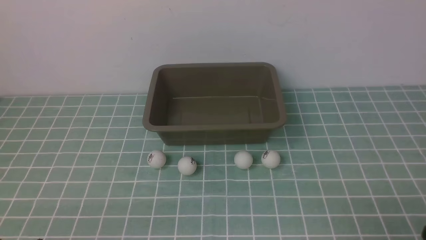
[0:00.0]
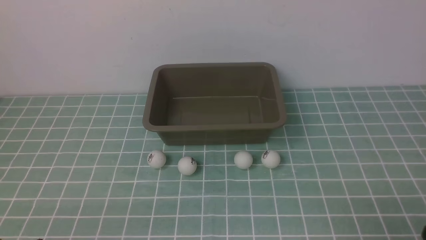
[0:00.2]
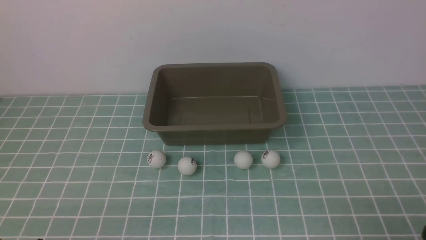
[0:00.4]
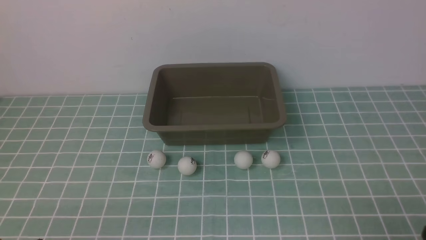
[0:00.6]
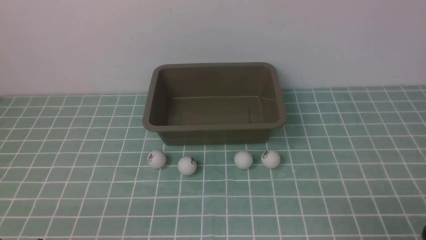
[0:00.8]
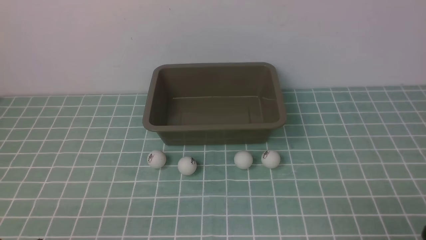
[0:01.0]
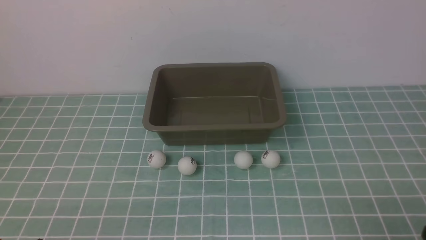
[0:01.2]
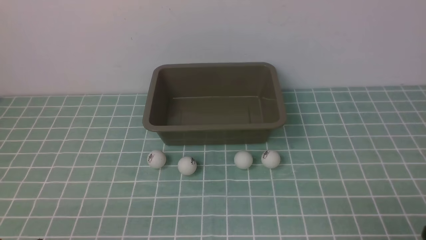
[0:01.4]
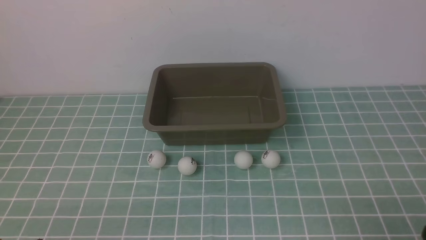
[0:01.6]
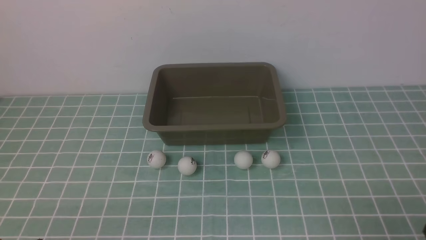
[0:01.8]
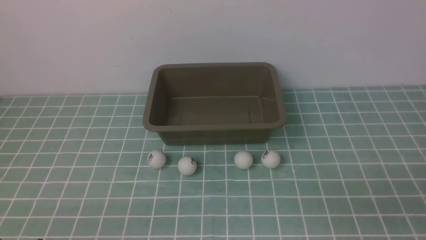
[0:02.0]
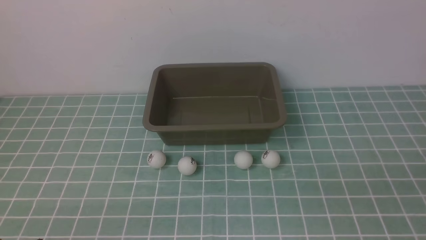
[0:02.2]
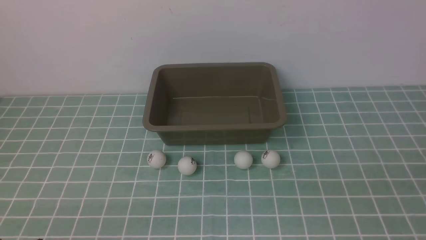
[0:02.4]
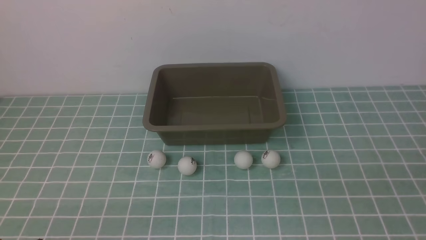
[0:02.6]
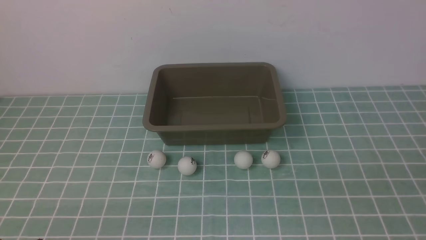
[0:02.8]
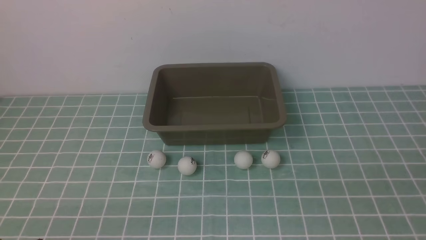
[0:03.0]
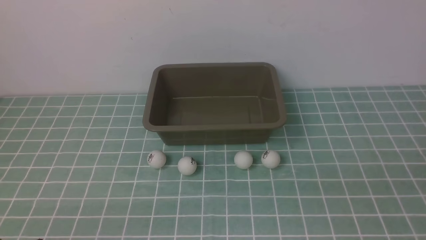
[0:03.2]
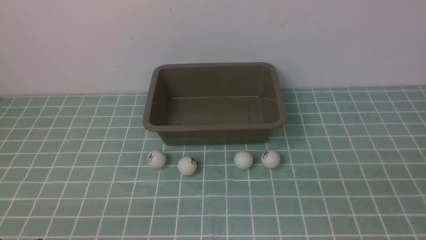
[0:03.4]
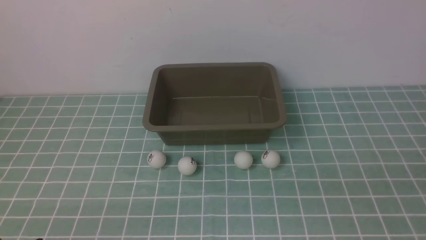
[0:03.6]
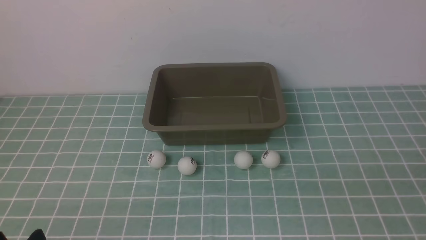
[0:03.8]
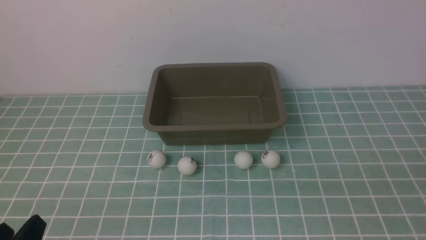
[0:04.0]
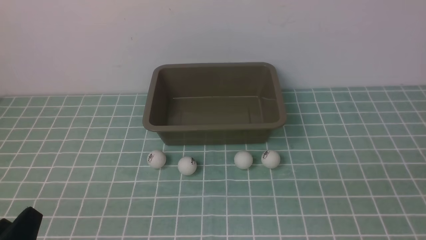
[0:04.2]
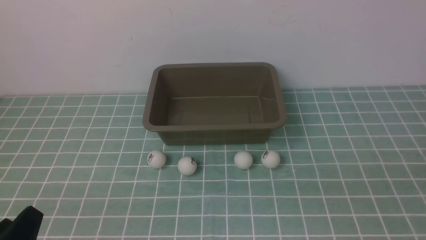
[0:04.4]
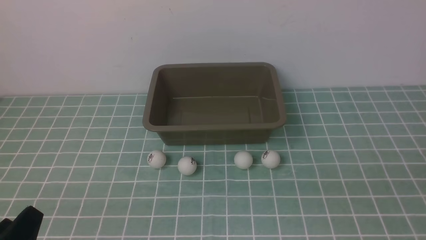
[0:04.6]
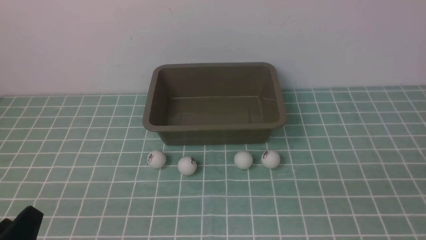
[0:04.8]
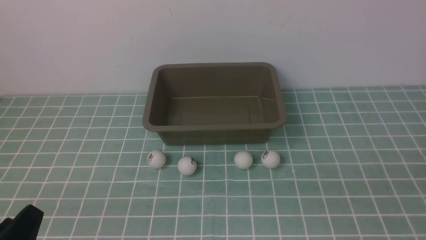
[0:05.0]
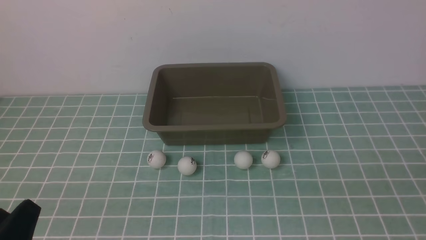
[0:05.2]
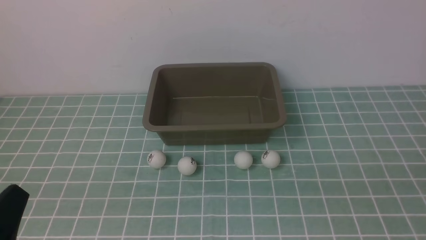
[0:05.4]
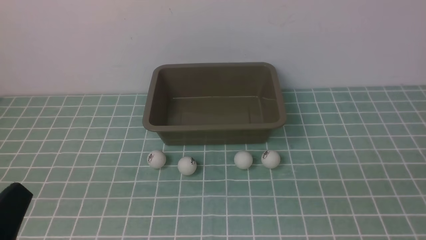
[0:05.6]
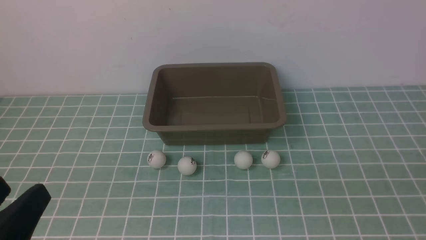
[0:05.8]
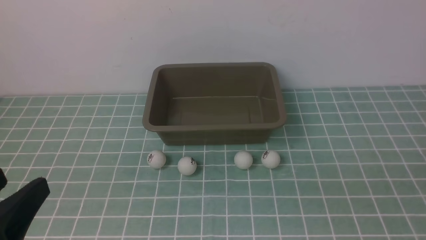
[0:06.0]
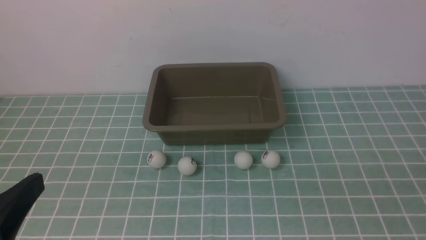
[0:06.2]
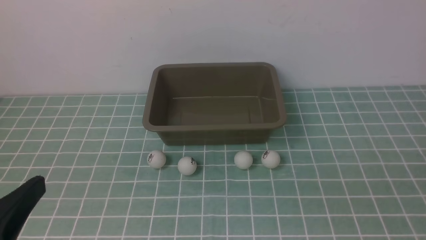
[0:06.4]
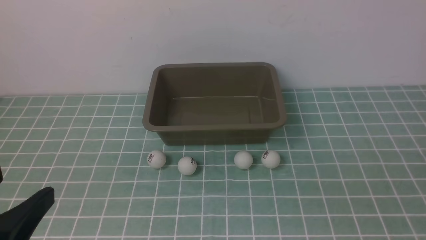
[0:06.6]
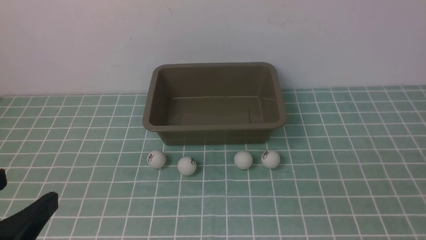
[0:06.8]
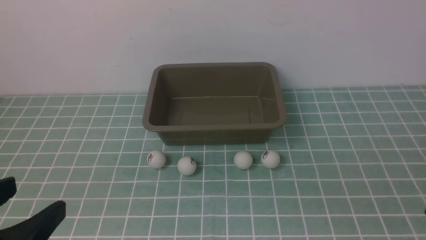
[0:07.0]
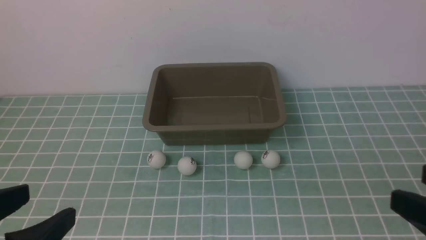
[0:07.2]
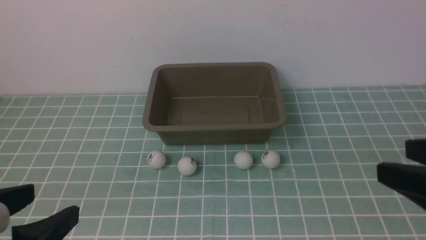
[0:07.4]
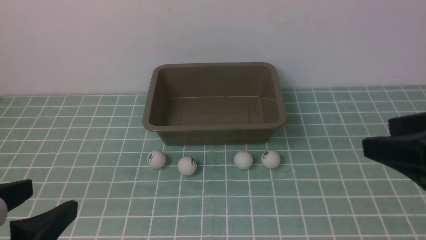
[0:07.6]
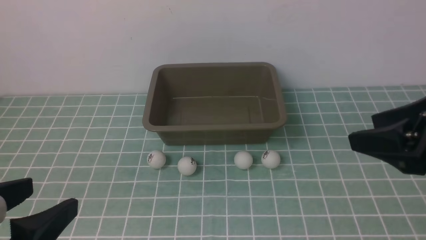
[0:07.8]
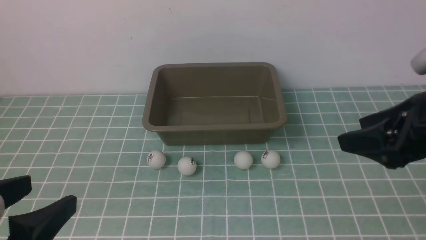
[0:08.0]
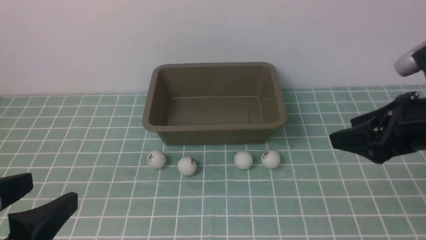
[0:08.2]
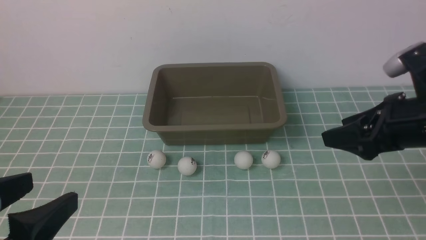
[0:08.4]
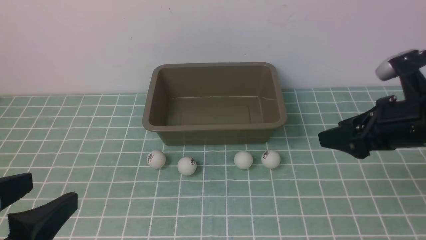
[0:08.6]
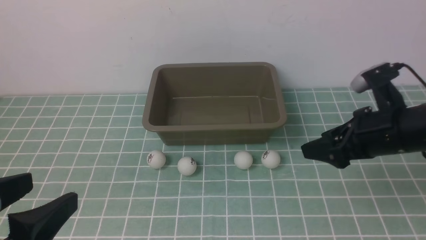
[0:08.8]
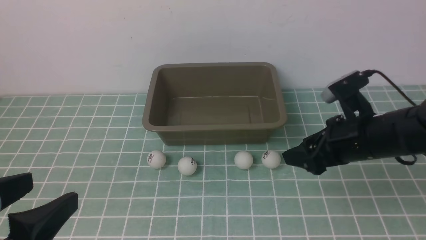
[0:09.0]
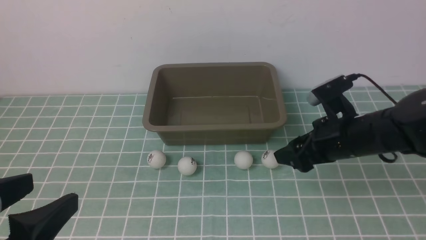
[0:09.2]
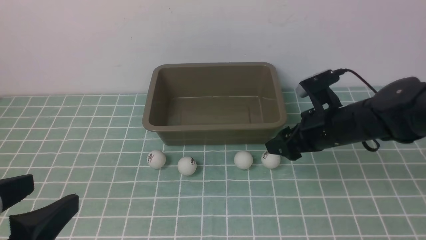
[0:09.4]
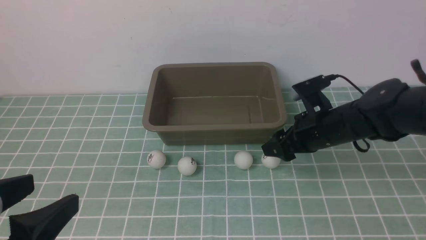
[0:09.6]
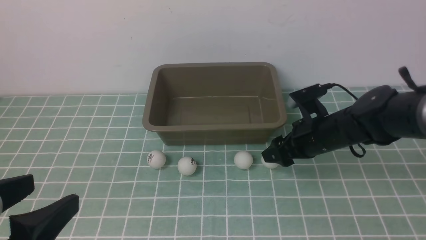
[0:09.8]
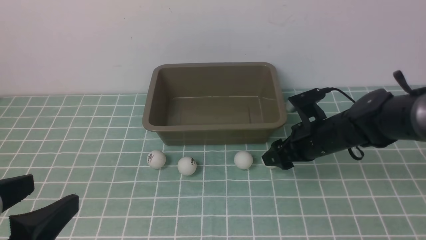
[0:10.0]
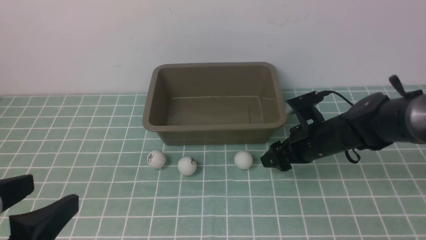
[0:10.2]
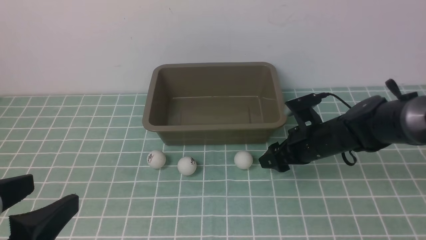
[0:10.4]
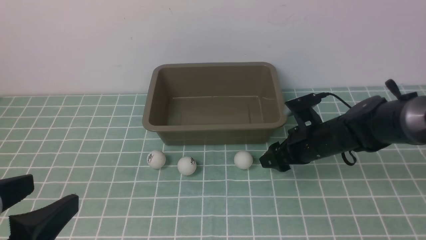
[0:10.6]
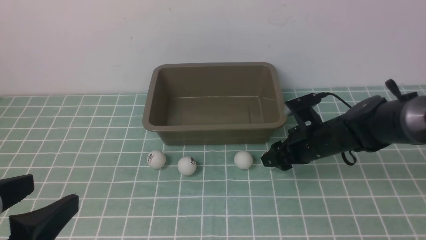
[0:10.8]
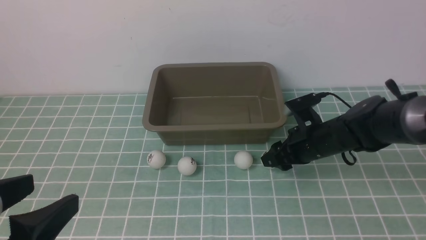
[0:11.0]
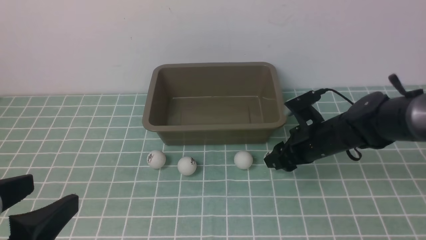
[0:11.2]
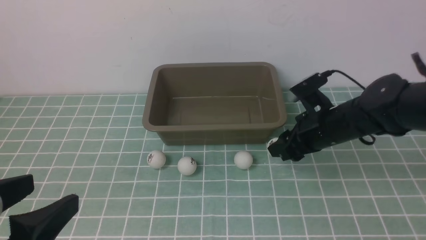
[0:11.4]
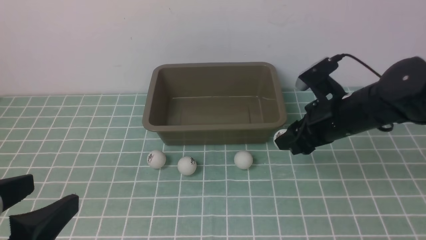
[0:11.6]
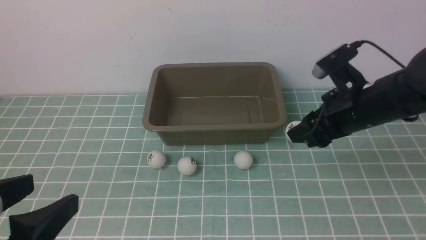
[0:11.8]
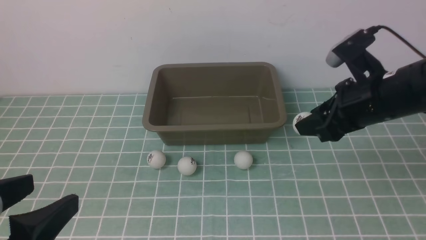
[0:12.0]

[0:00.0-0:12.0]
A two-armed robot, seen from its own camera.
Step, 0:00.0 to 0:11.4: use the right arm to clamp the table tennis ball closest to it.
0:00.0 to 0:01.6: Neither gripper changes place.
0:04.4 to 0:06.0: The left gripper is displaced upward by some 15 cm.
0:06.0 to 0:07.6: The right gripper travels forward by approximately 25 cm.
0:07.6 to 0:09.0: The right gripper travels downward, forward and to the left by about 20 cm.
0:09.0 to 0:10.4: The right gripper closes up.
0:10.4 to 0:12.0: The right gripper is displaced upward and backward by about 20 cm.

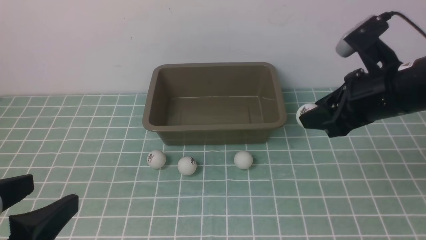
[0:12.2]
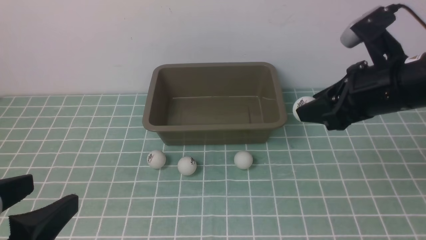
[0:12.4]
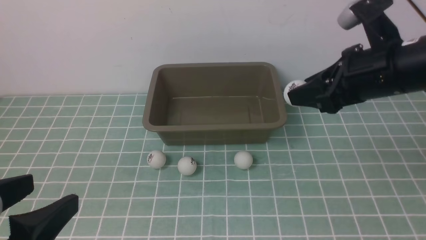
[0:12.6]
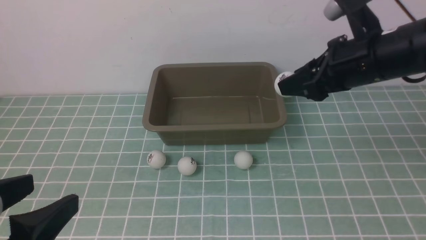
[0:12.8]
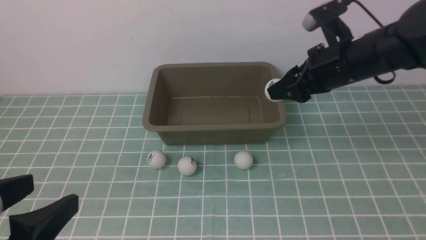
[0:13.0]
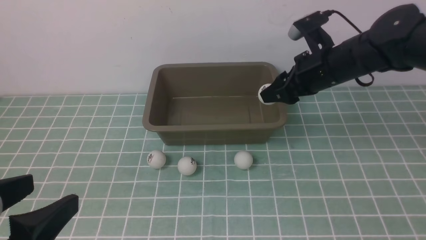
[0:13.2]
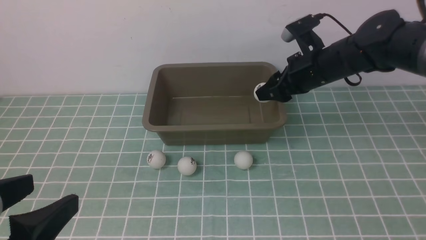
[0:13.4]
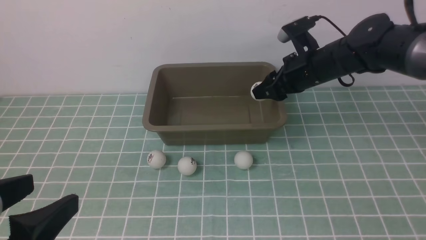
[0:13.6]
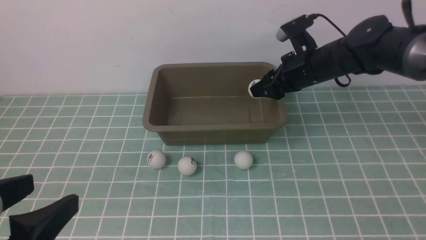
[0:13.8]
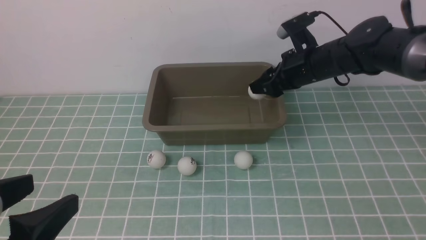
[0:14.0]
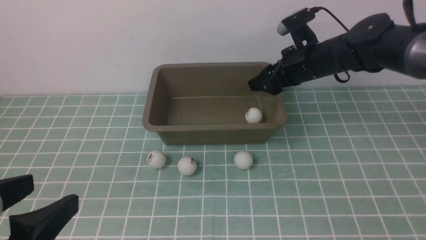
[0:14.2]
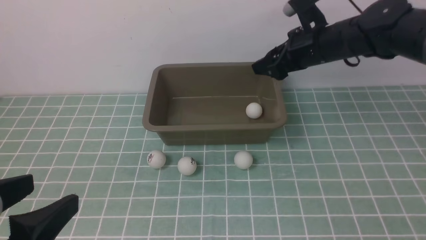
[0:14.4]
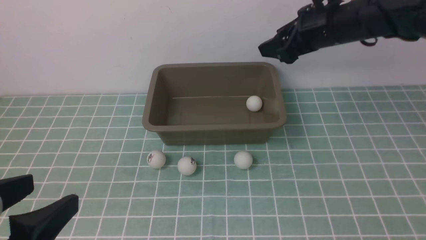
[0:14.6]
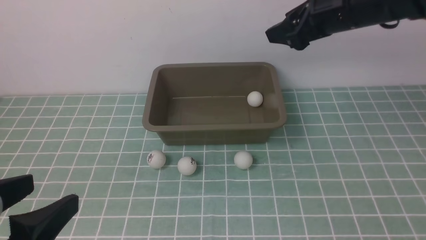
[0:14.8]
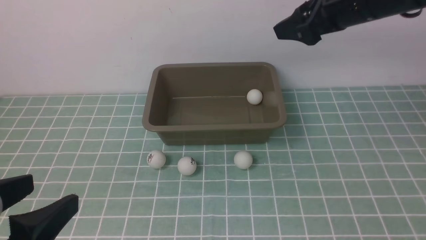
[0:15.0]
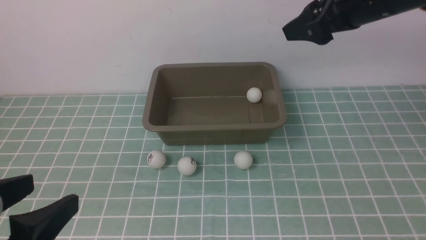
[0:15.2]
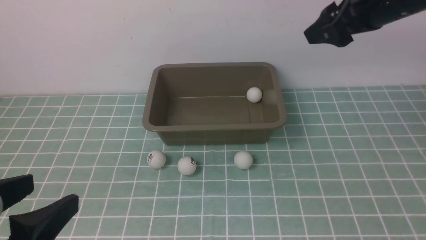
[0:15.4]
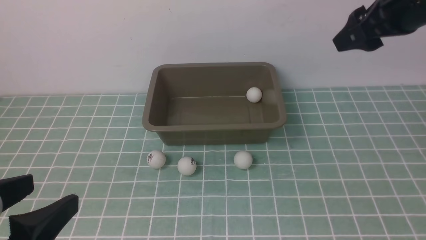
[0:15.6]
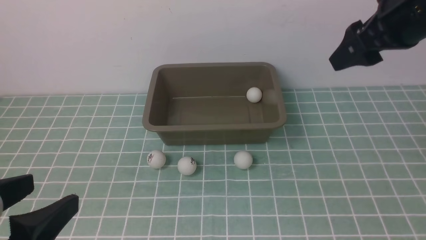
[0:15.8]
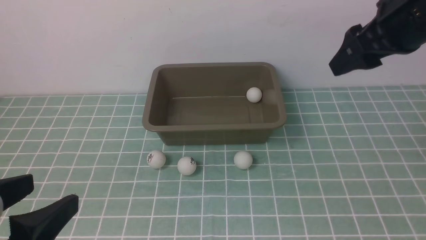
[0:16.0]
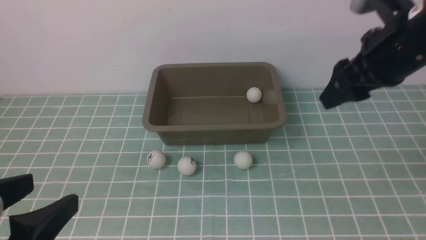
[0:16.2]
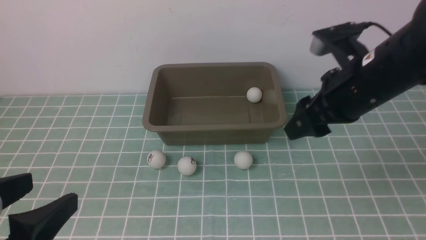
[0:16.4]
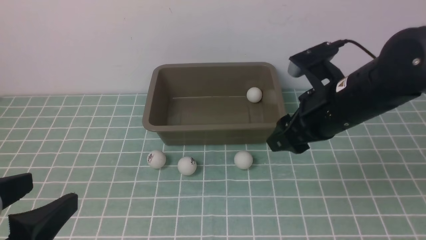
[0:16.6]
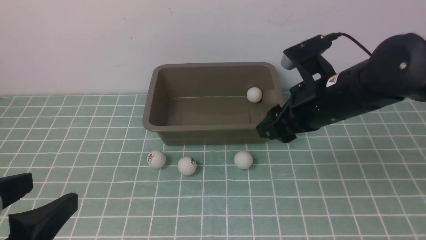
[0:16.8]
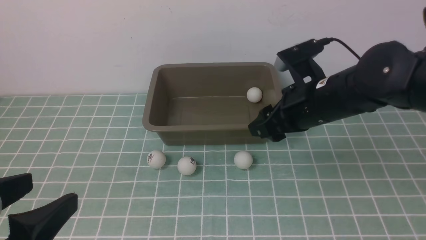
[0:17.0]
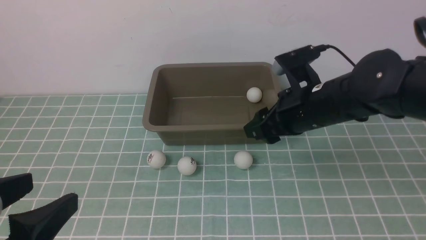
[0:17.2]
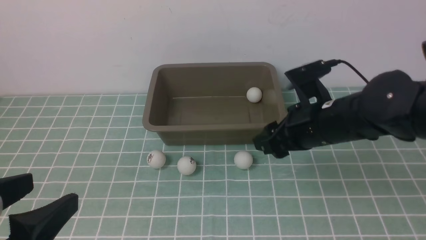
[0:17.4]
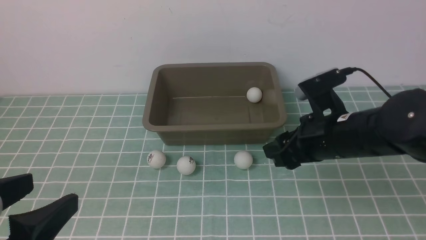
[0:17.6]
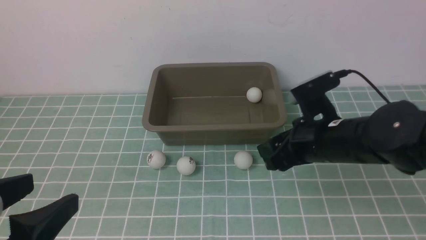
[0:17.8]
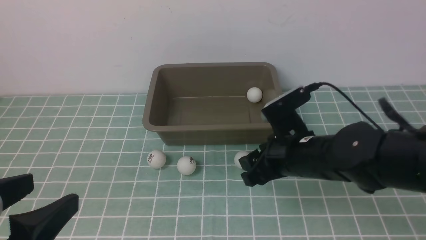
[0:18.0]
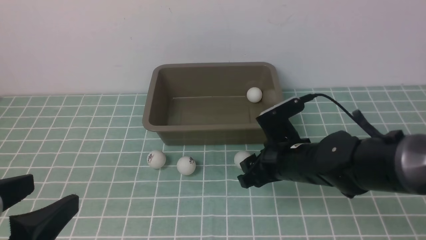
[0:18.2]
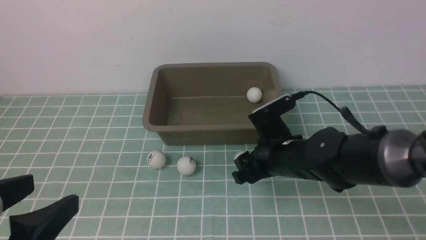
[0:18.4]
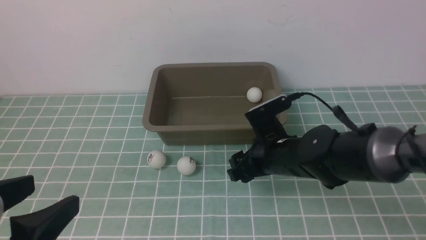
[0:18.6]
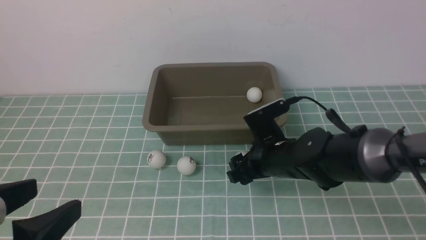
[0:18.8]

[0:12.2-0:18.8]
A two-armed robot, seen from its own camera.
Step, 0:12.2 to 0:14.2: use the right arm to put the table tennis ball into the box.
0:12.2 to 0:13.8: The right gripper travels forward and downward by about 20 cm.
0:13.8 to 0:15.4: The right gripper moves upward and backward, roughly 20 cm, and opens.
0:15.4 to 0:17.2: The right gripper shifts roughly 15 cm downward and to the left, and closes up.
0:17.2 to 0:18.8: The right gripper moves downward and to the left, about 10 cm, and opens its fingers.
